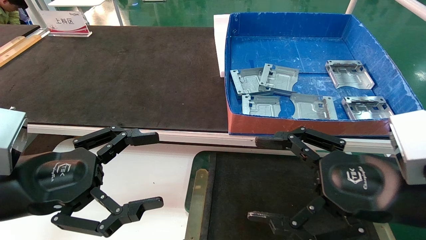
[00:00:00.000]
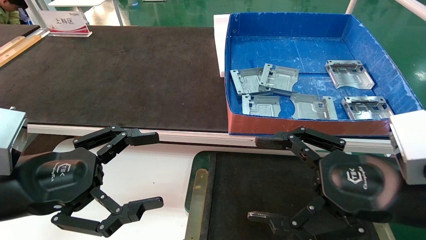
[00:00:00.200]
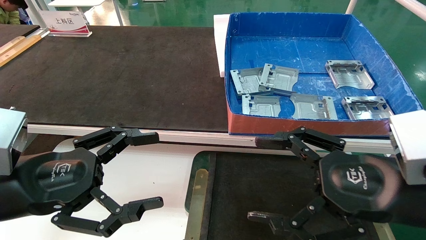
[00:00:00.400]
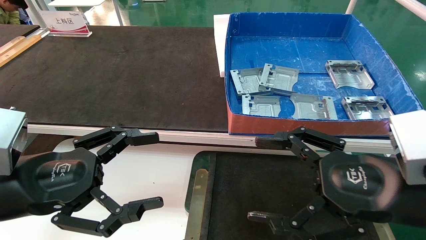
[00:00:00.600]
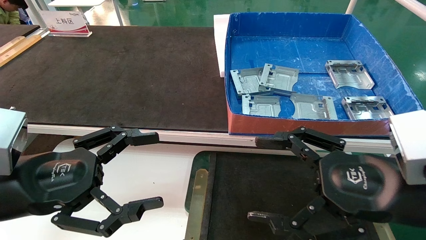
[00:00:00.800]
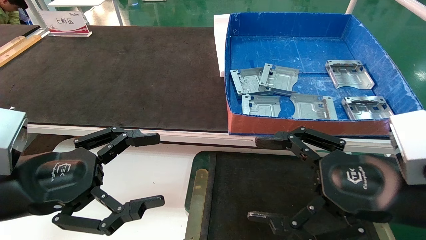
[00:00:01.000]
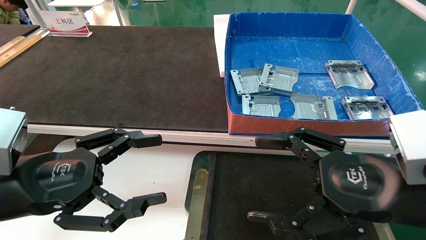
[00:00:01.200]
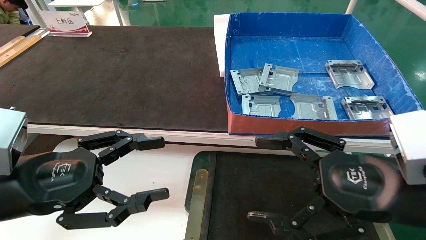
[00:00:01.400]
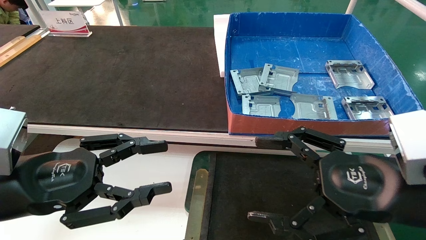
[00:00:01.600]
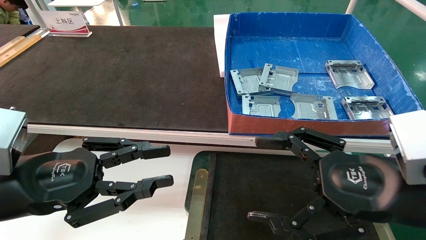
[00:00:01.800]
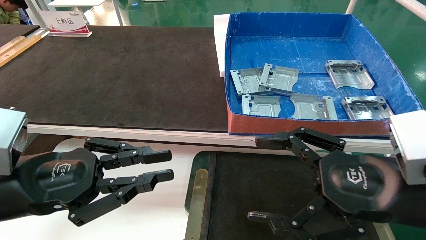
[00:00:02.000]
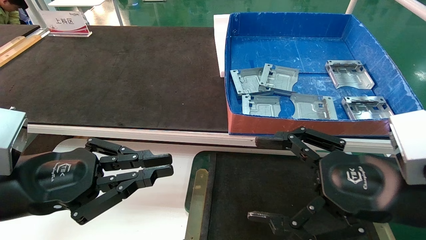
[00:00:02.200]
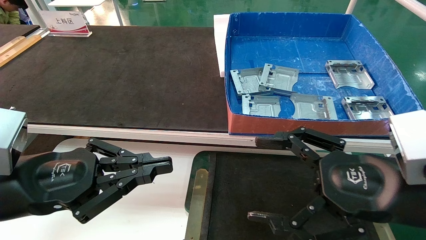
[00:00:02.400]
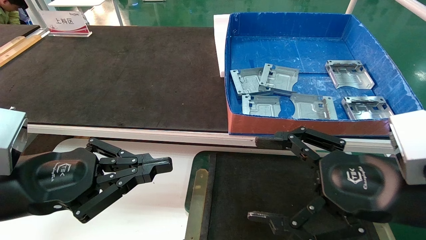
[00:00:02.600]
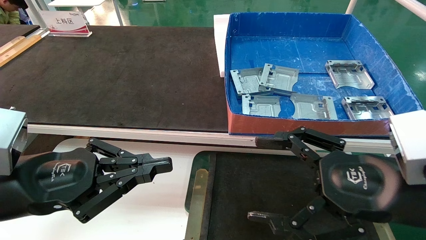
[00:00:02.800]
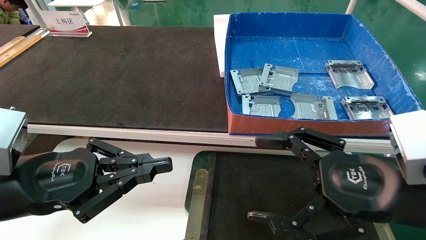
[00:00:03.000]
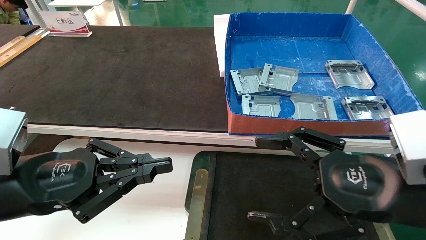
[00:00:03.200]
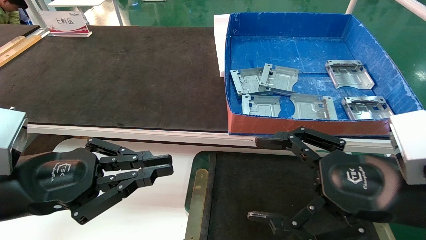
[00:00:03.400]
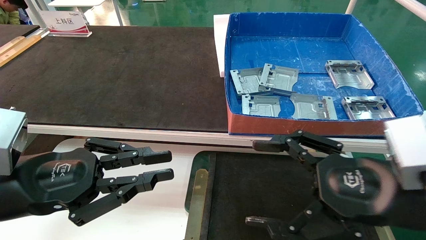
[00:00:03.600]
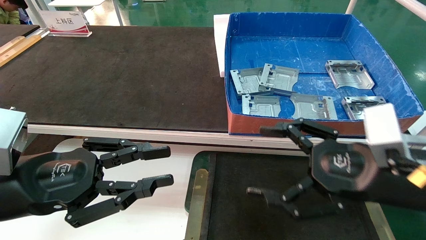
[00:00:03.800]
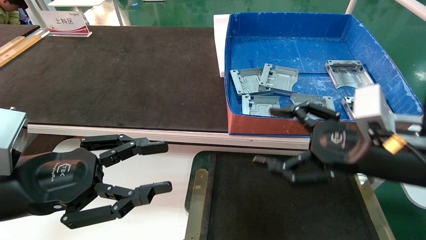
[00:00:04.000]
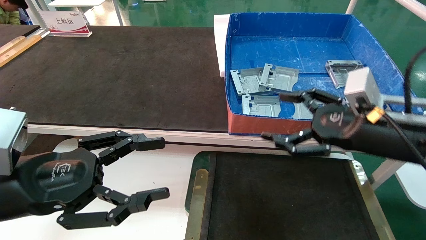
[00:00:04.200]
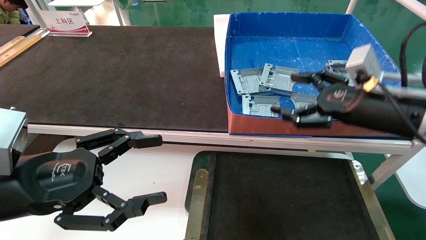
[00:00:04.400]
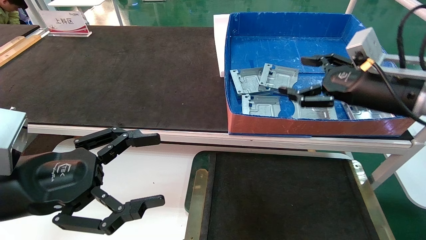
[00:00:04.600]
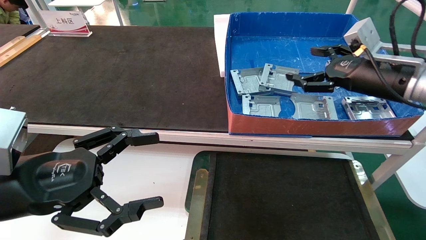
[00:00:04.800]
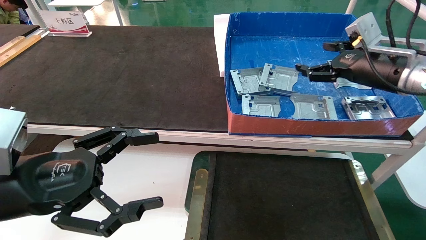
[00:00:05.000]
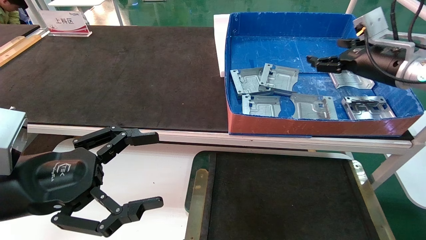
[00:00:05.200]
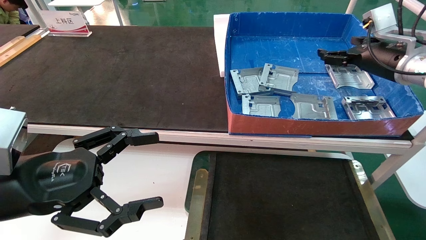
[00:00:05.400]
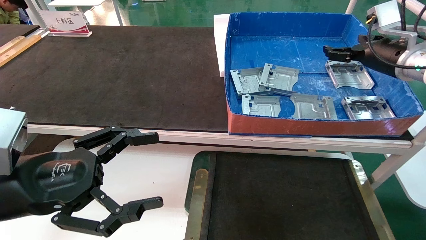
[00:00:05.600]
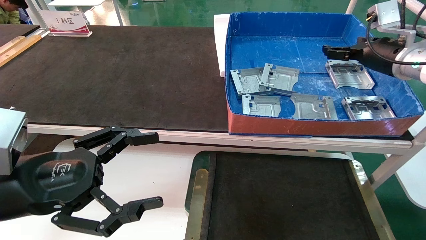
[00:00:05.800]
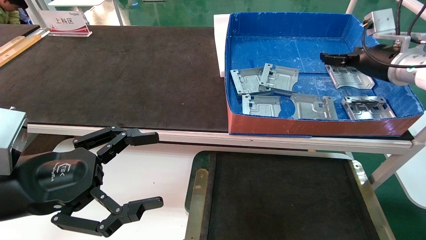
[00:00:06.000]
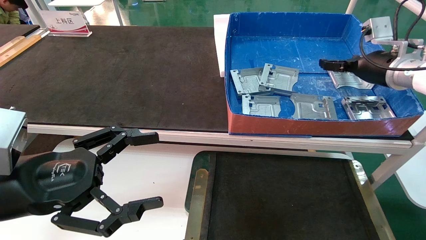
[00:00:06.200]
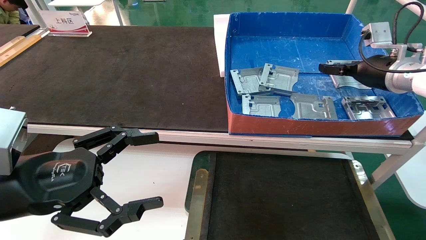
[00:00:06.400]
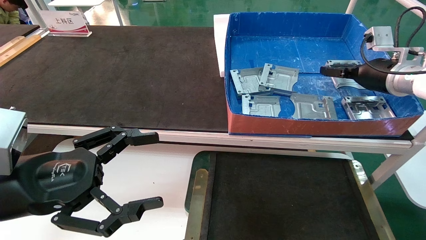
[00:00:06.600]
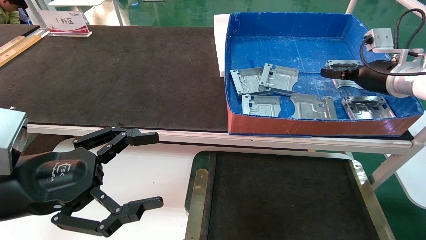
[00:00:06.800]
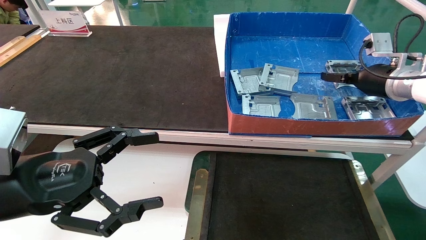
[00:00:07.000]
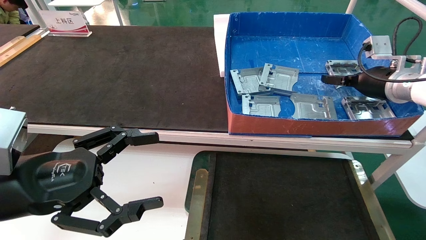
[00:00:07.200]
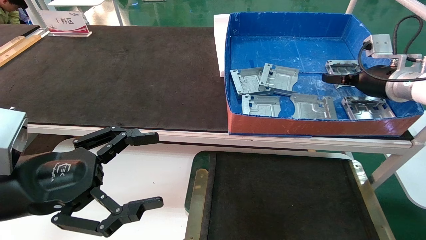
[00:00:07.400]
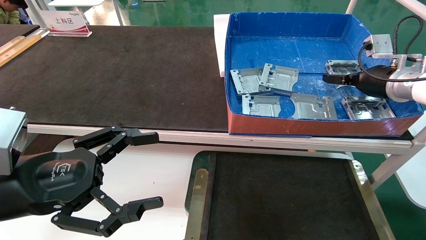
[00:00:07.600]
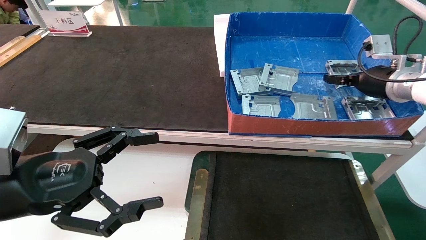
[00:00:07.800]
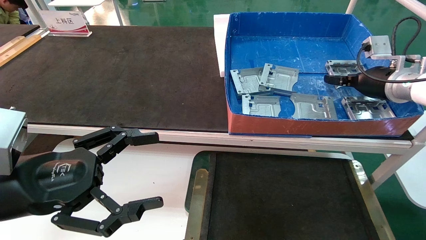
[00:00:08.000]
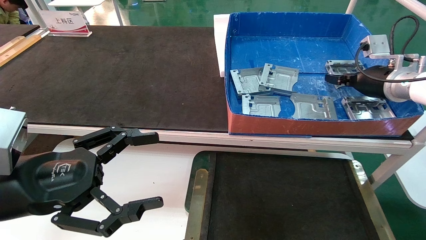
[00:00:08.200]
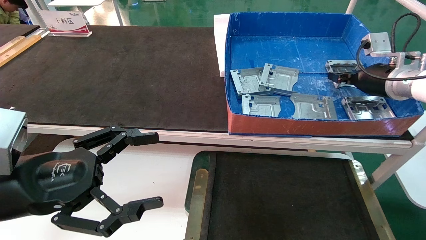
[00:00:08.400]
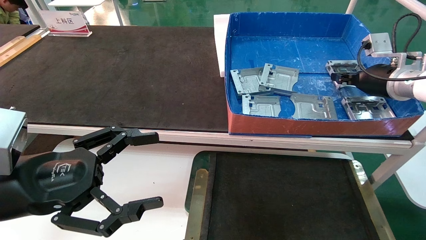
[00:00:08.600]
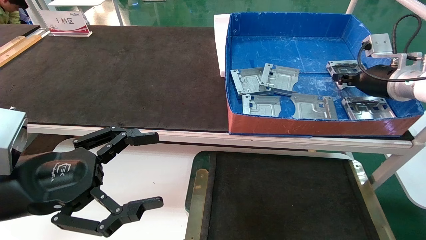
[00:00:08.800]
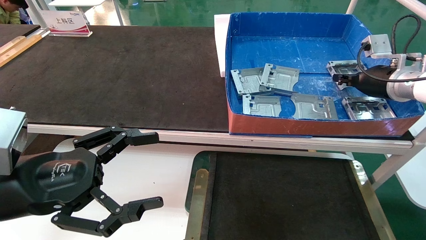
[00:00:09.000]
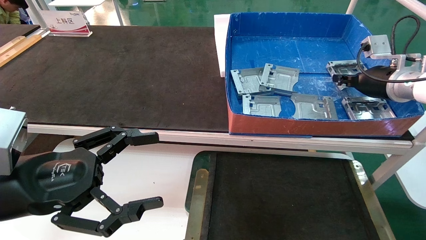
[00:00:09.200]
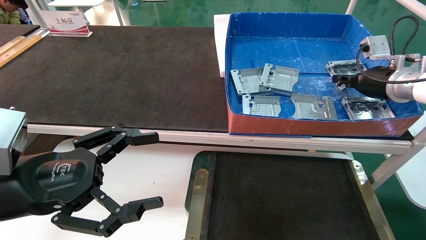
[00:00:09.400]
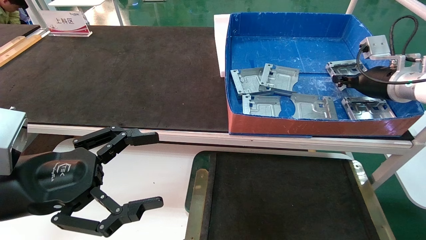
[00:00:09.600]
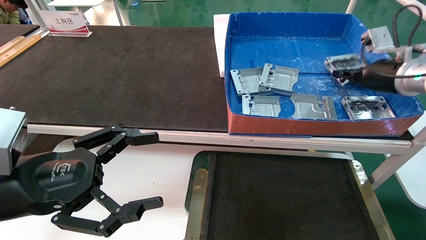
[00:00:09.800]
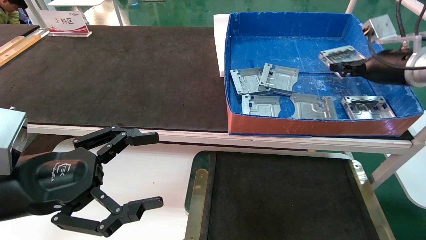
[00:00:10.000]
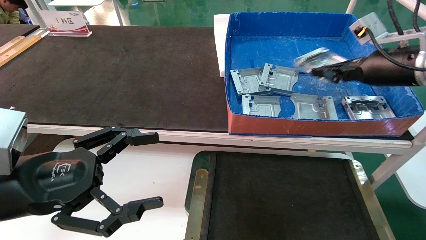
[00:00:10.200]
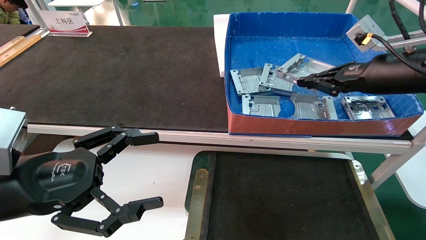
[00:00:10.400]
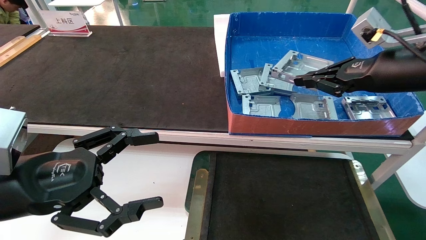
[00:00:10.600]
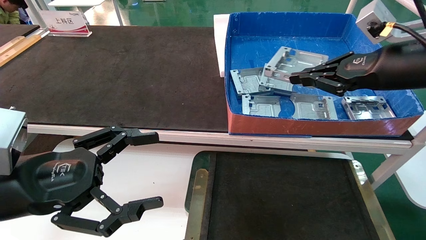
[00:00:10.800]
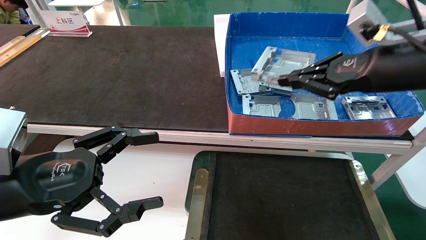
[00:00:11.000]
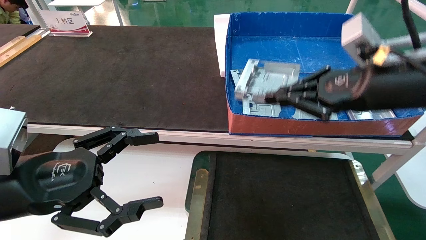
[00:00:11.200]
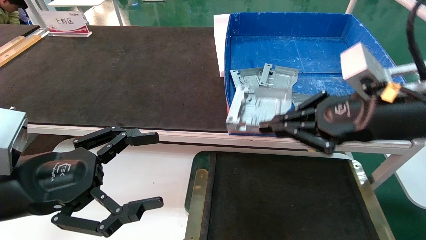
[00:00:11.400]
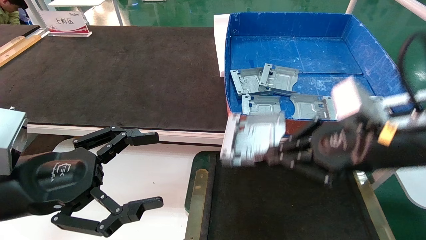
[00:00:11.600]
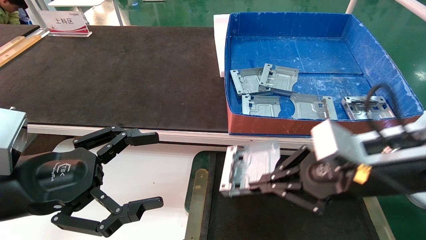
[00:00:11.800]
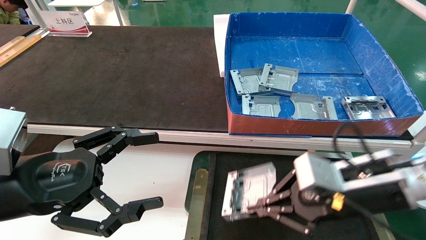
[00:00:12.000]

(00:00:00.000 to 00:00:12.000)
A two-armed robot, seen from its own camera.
Task of the whole recording: pick up parts and place them into a black container.
Step, 00:00:04.000 - 00:00:09.200: Pick up the hard drive bracket from the feeding area.
00:00:00.000 - 00:00:01.600: Both grippers stay put.
00:00:01.600 - 00:00:03.000: The left gripper closes up.
00:00:03.000 - 00:00:04.400: The left gripper opens up. Meanwhile the right gripper shifts about 15 cm forward.
00:00:04.400 - 00:00:06.000: The right gripper heads forward and to the right, covering some 15 cm.
00:00:06.000 - 00:00:07.600: There are only small adjustments of the grippers.
00:00:07.600 - 00:00:09.000: The right gripper closes.
00:00:09.000 - 00:00:10.400: The right gripper travels backward and upward by some 10 cm.
00:00:10.400 - 00:00:12.000: The right gripper shifts some 20 cm downward, to the left and backward.

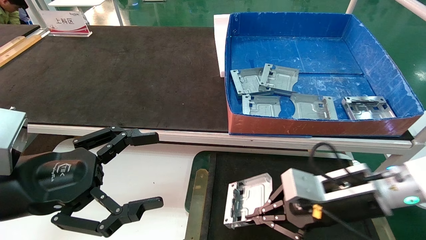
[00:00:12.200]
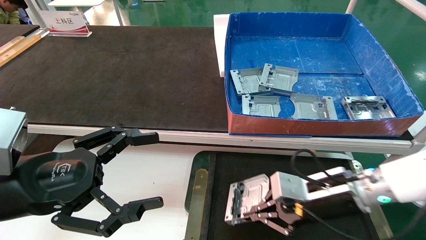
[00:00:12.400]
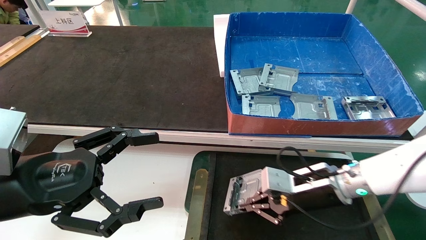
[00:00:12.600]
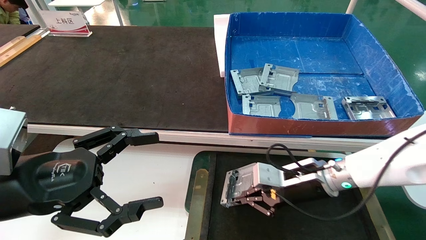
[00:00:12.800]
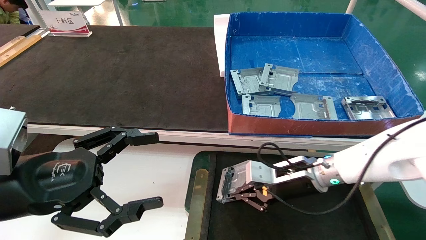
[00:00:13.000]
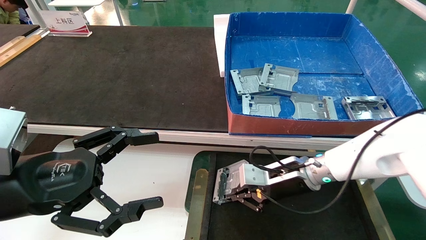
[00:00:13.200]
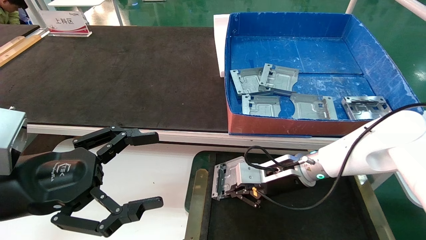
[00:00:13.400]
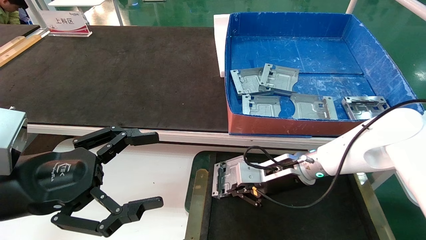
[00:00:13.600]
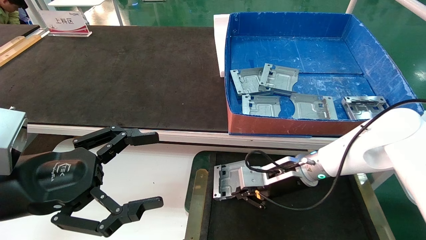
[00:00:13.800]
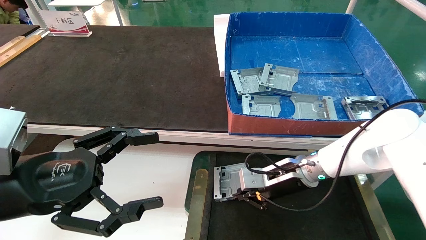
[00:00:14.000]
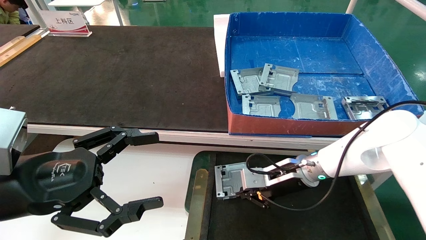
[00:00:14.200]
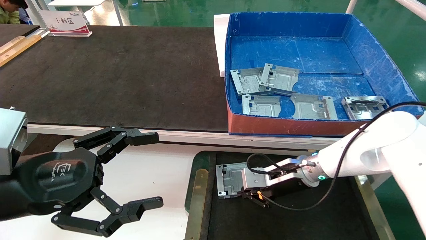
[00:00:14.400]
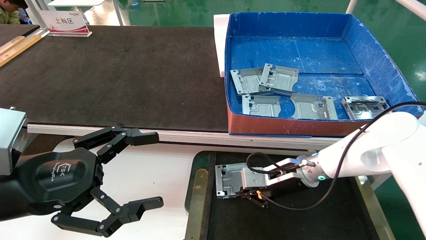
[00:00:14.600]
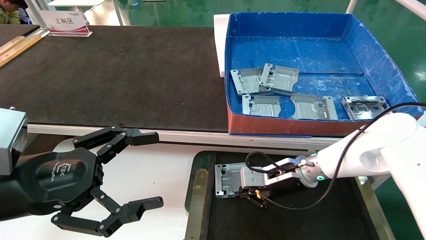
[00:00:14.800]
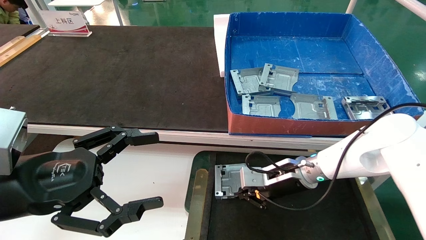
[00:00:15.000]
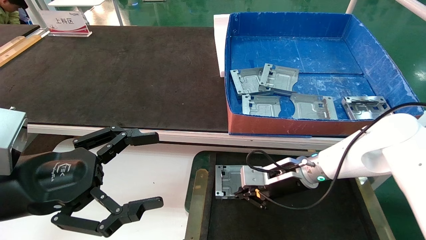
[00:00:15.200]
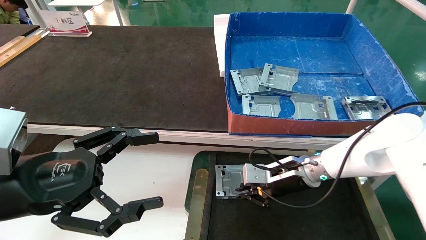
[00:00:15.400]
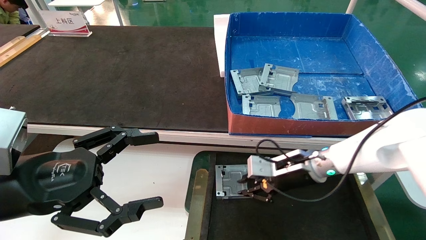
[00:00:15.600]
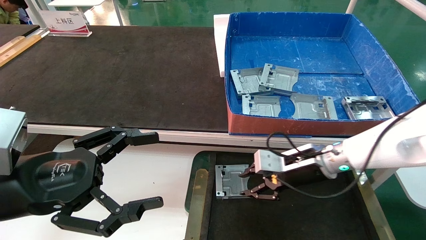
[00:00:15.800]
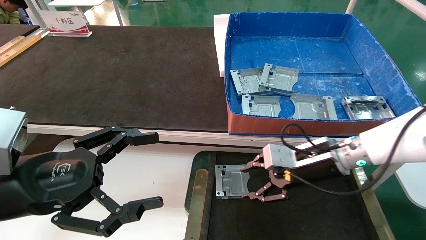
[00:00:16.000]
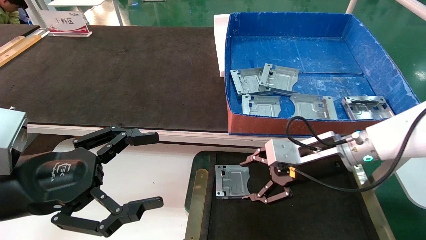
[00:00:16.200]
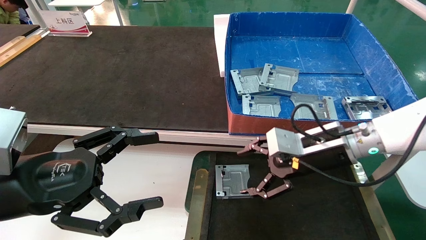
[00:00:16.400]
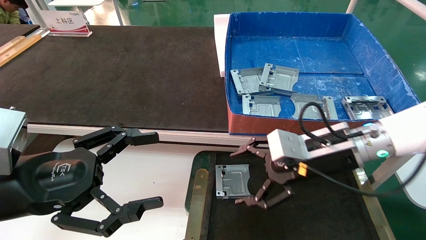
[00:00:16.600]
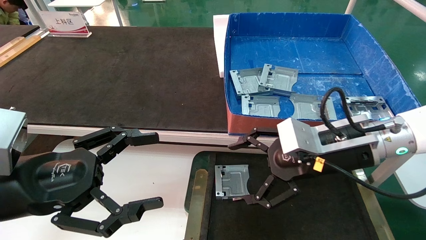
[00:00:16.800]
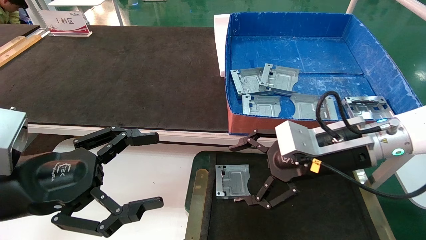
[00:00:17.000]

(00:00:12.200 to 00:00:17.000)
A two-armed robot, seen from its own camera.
Task of the whole recording: pick up parts and place them into a black container.
Step, 00:00:12.200 - 00:00:14.600: Place the hard drive bracket into the box.
00:00:12.200 - 00:00:13.800: The right gripper is displaced forward and to the left by approximately 15 cm.
00:00:13.800 - 00:00:15.400: There are only small adjustments of the grippers.
00:00:15.400 - 00:00:17.000: The right gripper goes approximately 15 cm upward and backward, and opens up.
